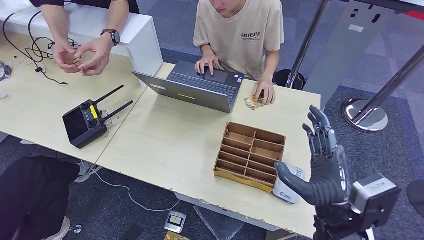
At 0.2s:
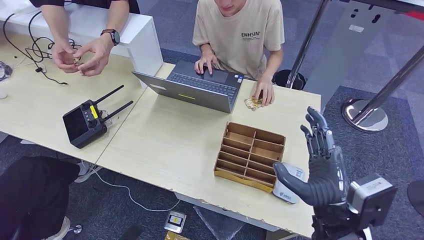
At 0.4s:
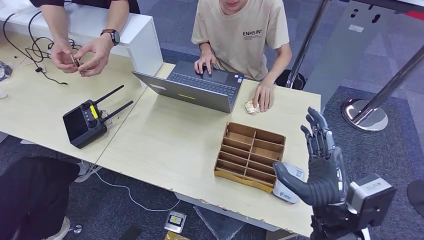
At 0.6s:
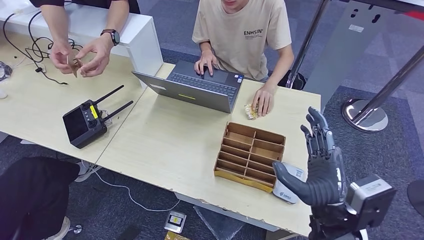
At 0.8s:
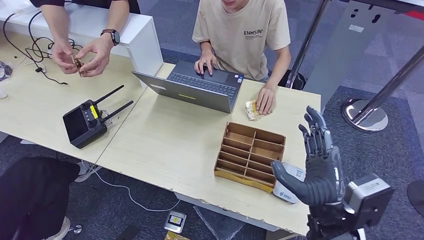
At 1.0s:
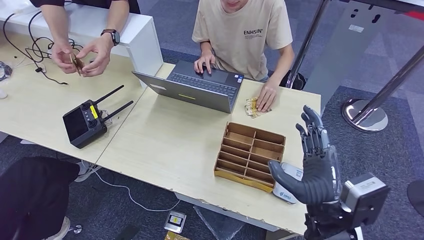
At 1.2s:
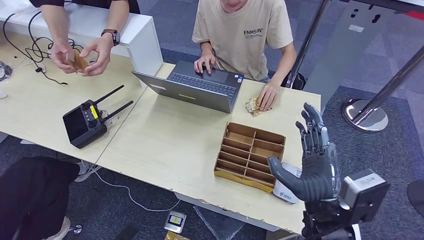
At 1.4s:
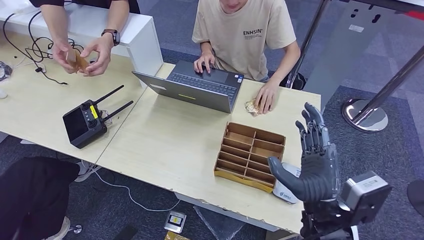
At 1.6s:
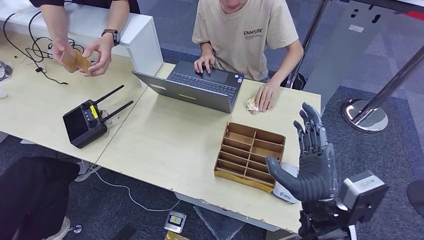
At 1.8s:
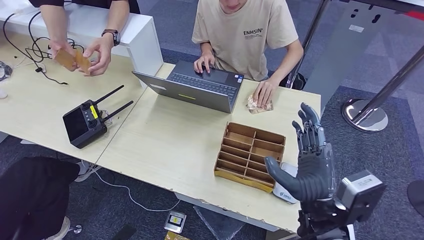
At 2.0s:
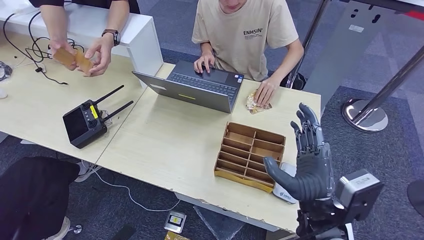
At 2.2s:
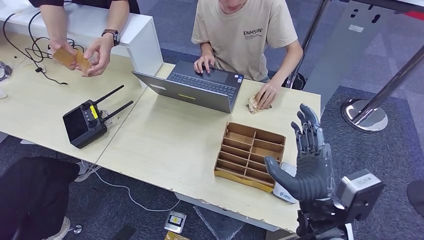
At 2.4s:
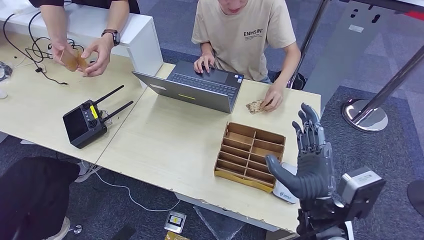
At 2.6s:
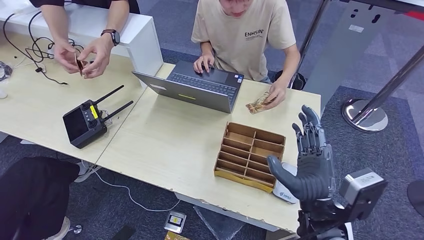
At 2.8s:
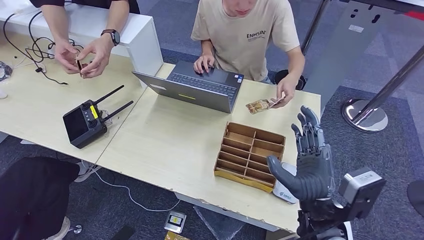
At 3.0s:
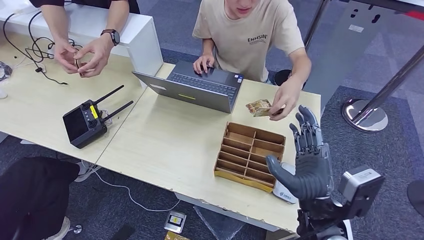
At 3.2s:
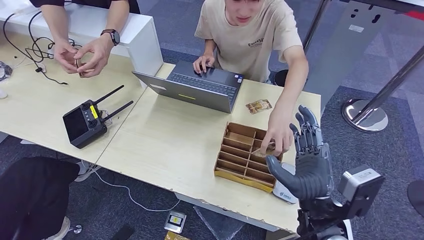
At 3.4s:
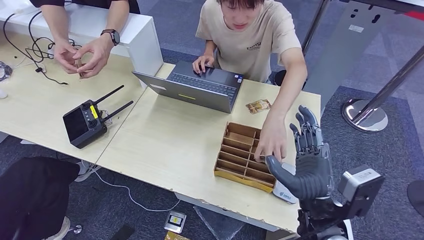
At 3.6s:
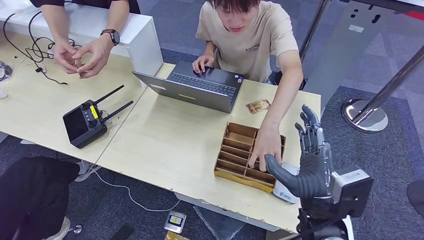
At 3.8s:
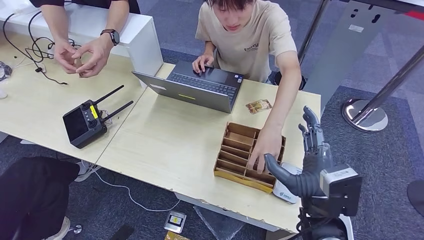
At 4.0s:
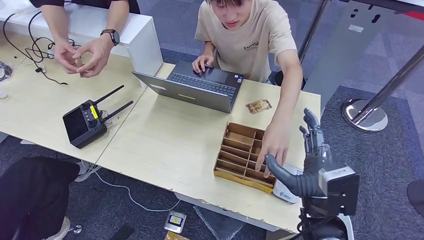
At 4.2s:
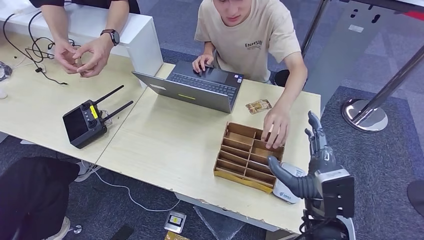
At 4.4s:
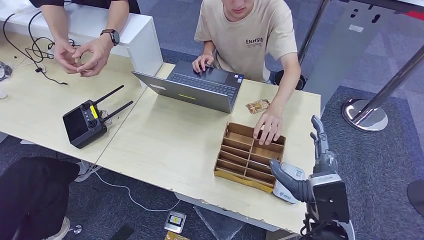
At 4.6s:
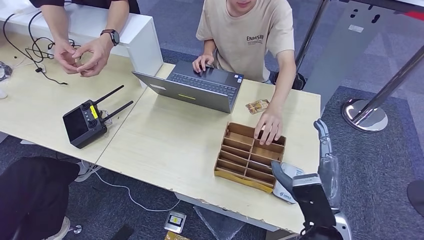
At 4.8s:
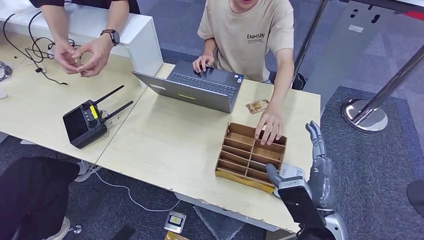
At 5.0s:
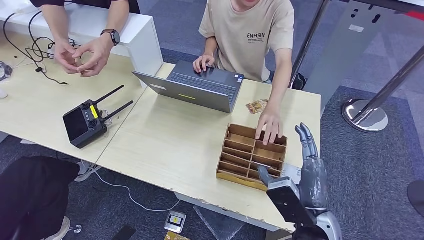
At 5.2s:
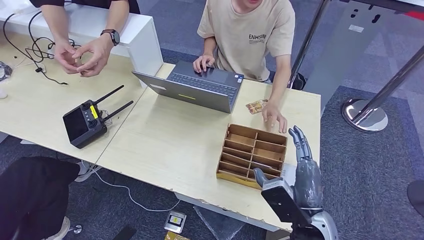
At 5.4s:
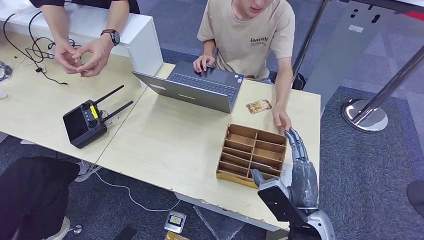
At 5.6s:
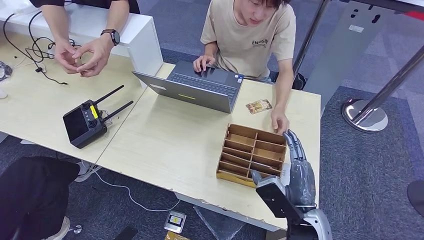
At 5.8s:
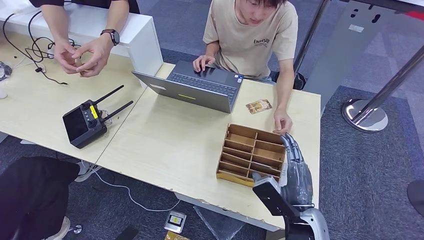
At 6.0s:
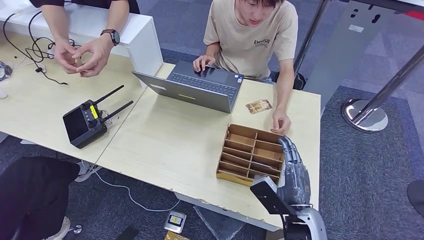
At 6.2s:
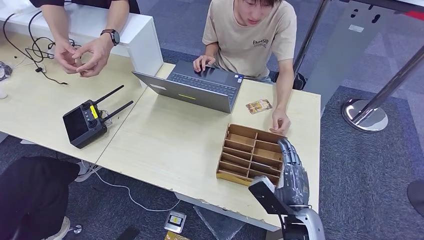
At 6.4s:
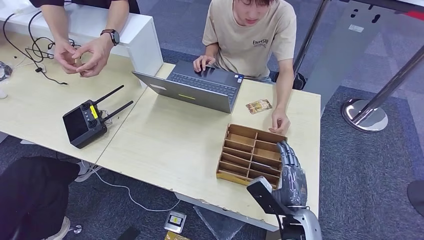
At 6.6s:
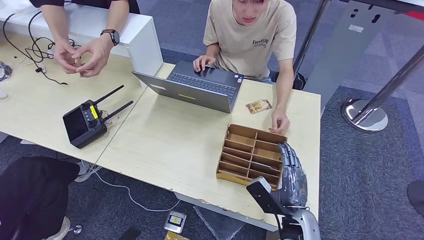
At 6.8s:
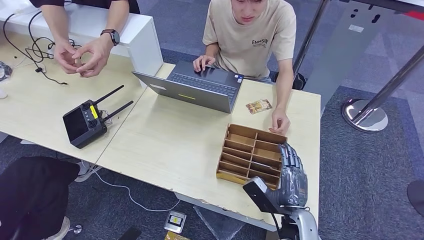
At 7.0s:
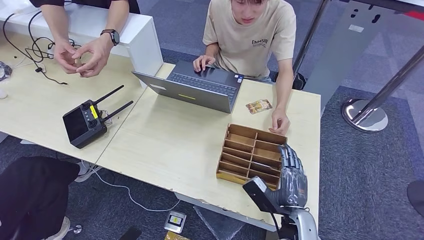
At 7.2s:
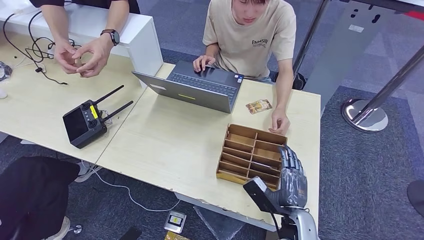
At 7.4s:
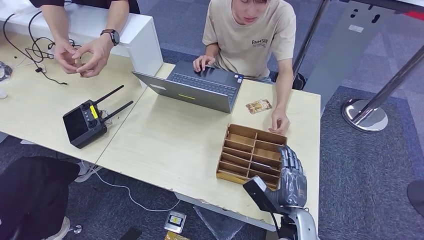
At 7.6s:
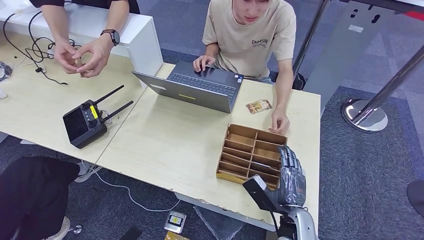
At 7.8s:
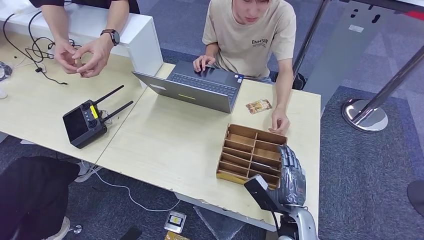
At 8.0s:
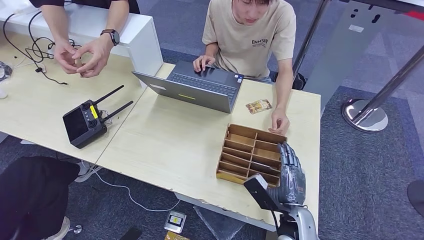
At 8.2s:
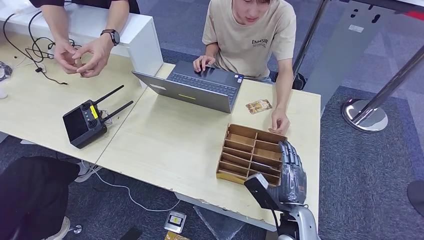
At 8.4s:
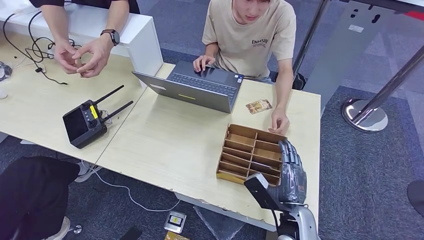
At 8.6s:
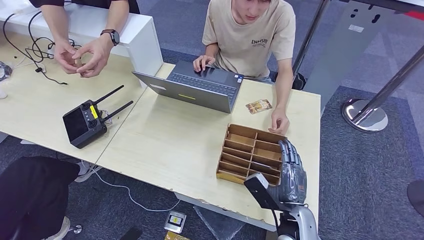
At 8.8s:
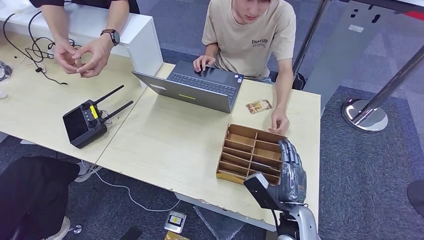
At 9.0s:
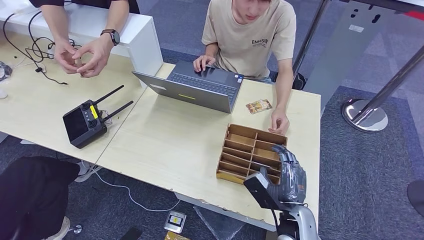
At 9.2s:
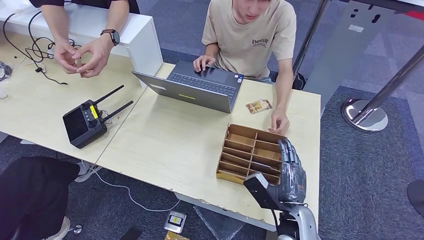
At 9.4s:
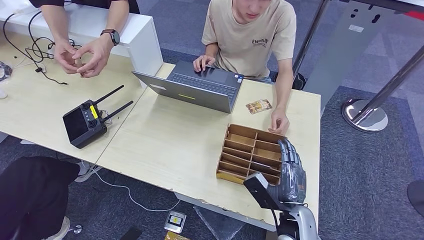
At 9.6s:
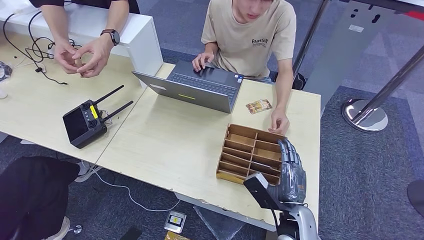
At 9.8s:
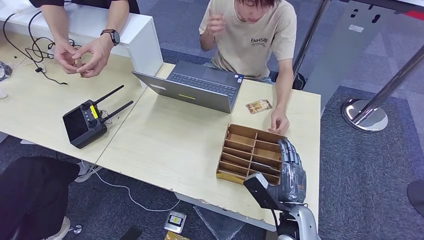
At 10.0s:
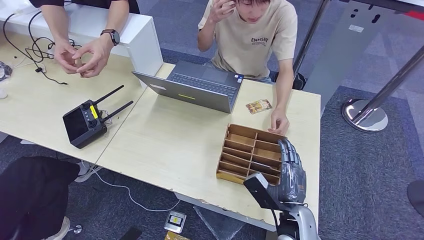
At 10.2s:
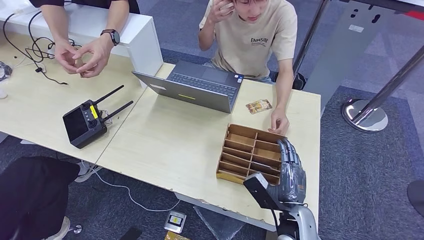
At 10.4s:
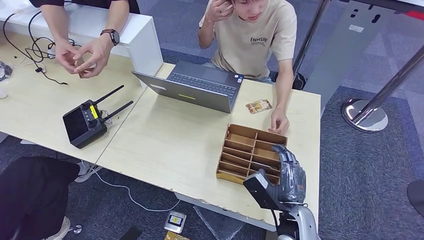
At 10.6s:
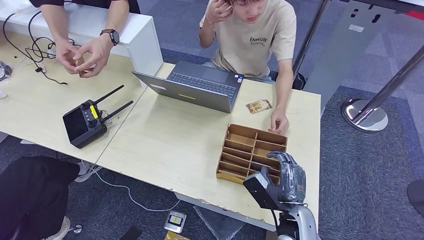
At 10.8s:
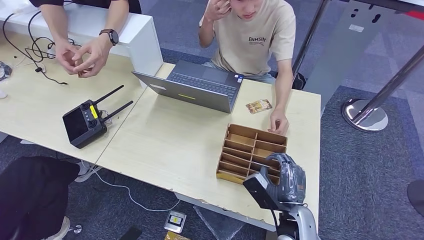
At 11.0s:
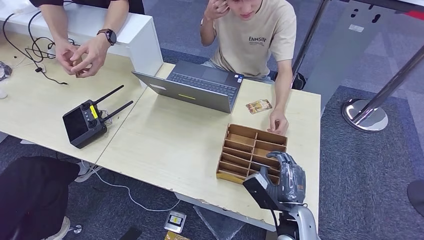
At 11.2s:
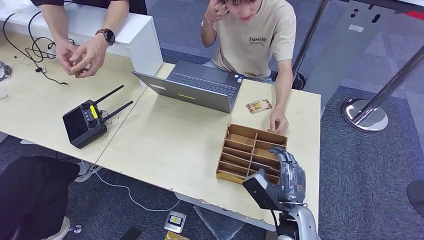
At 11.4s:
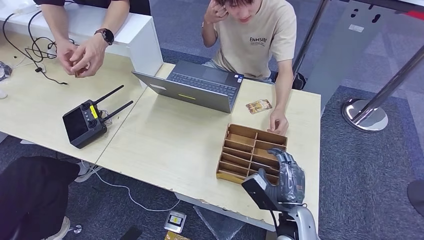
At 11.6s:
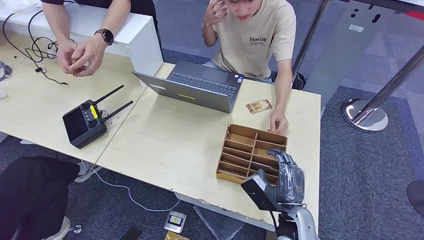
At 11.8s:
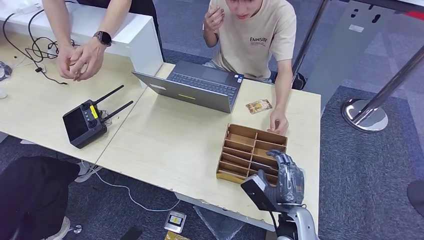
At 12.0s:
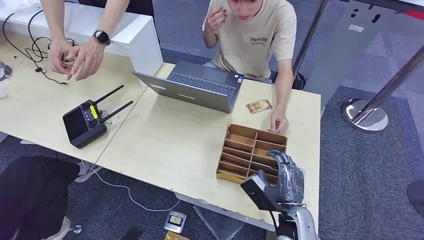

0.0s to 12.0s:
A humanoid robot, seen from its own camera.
0.0s to 3.0s: There are only small adjustments of the hands.
4.4s to 6.0s: The right hand shifts some 10 cm downward.
6.0s to 7.6s: The right hand goes roughly 5 cm downward.
7.6s to 9.0s: There are only small adjustments of the hands.
9.0s to 12.0s: Neither hand changes place.

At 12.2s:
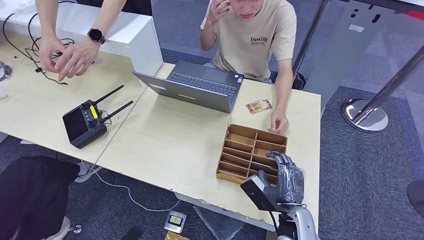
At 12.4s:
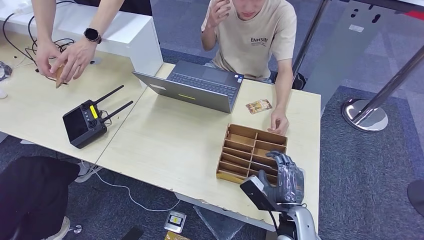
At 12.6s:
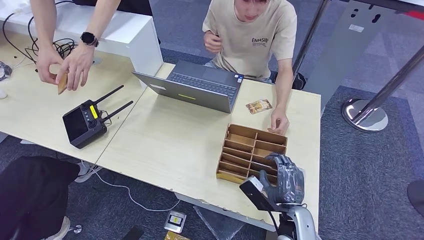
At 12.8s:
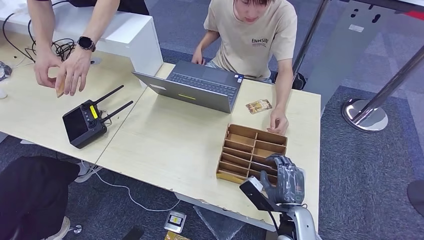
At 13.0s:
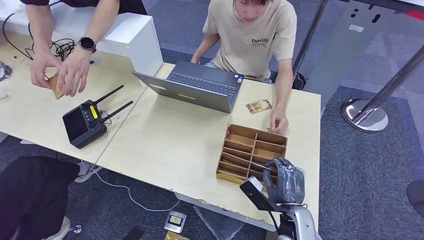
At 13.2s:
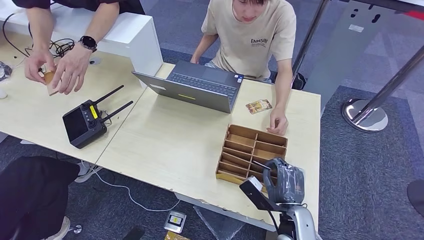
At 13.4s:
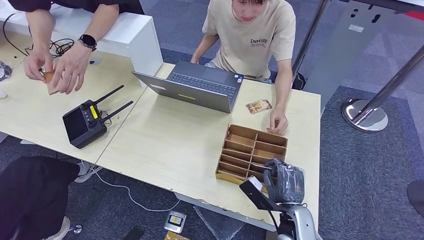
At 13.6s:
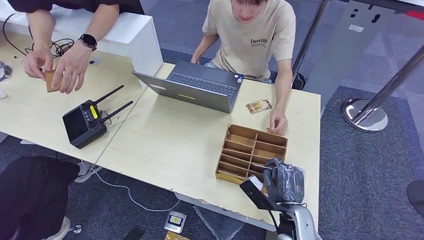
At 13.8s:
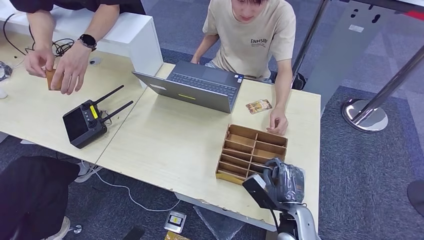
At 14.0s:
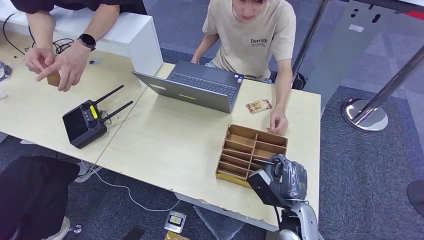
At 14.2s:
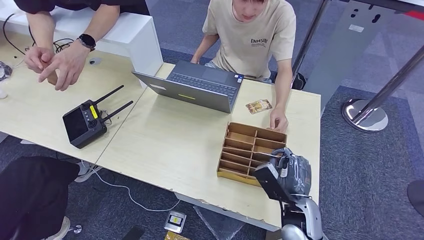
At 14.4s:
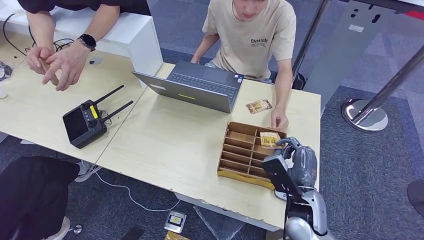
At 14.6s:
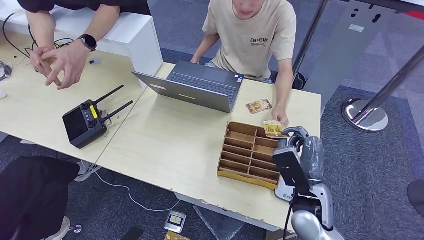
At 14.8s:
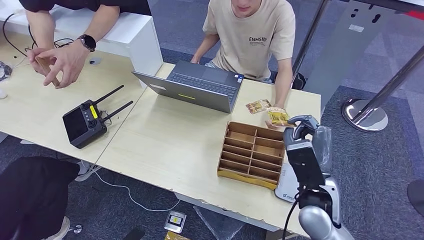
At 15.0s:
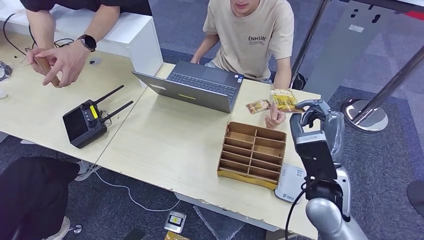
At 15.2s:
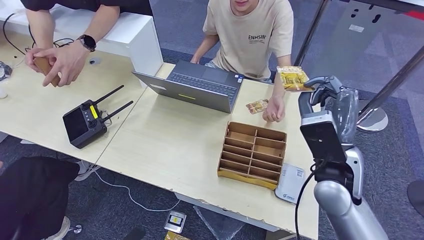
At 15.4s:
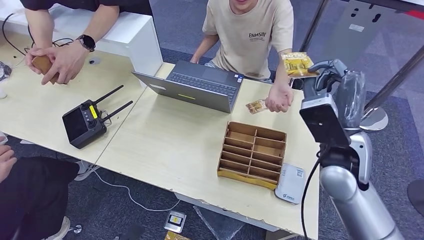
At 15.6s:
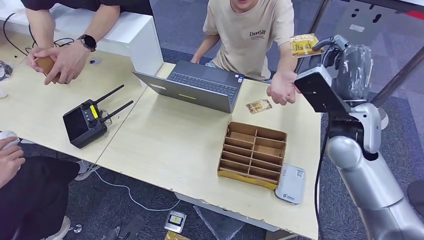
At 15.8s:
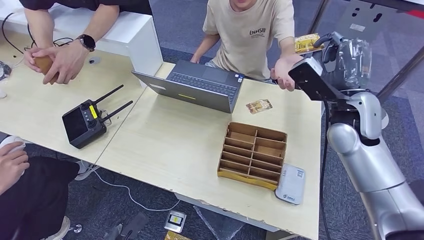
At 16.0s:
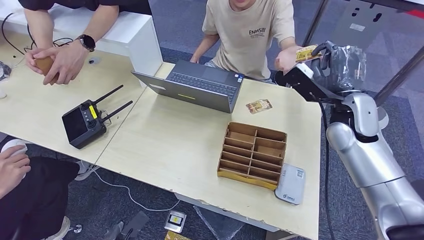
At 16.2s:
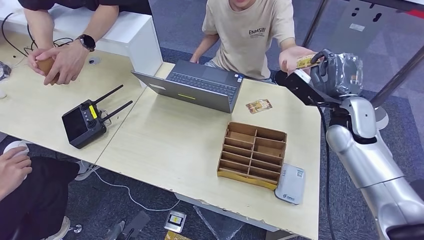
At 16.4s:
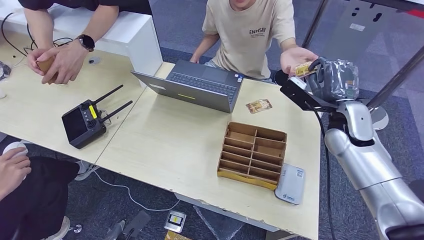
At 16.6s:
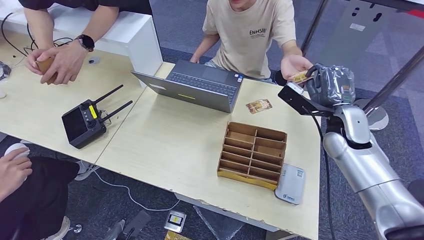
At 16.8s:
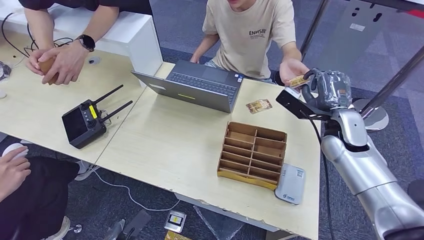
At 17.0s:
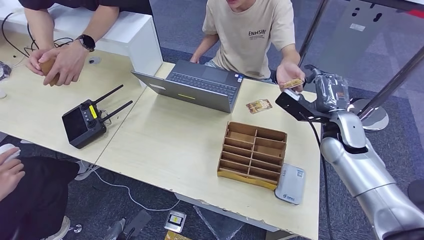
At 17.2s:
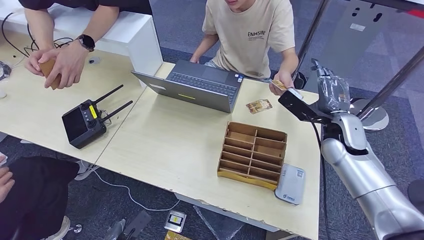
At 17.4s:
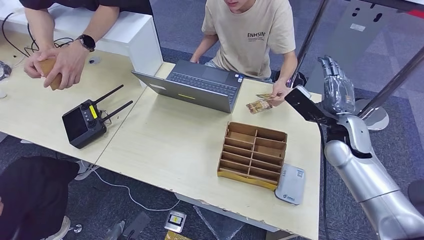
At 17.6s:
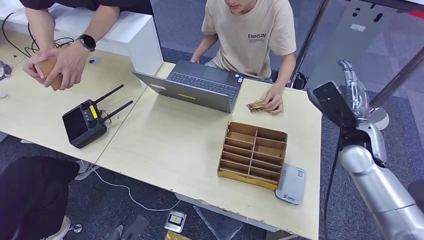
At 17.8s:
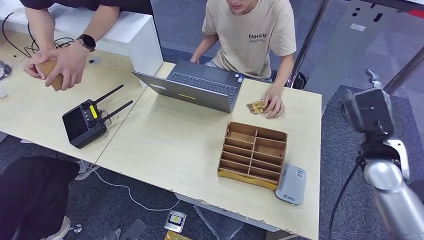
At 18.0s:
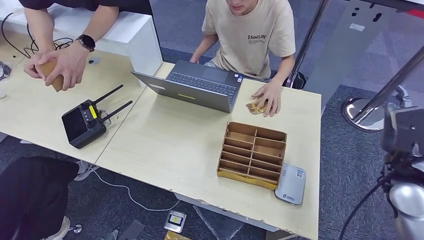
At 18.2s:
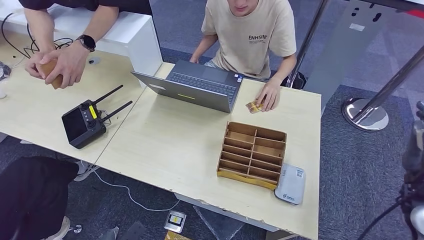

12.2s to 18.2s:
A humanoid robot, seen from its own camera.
Step, 12.2s to 16.0s: Pick up the room key from the key card box.
Step, 16.2s to 18.2s: Hand the room key to the person.
12.2s to 13.8s: The hands move only a little.
13.8s to 15.2s: The right hand travels upward by about 20 cm.
16.6s to 18.2s: The right hand travels backward and to the right by some 20 cm.
